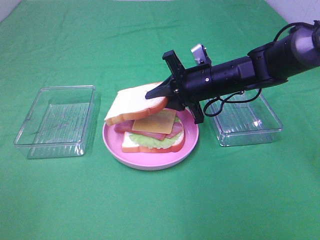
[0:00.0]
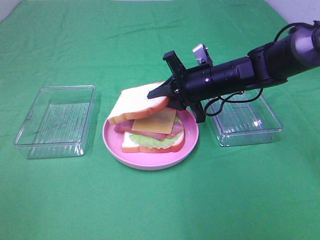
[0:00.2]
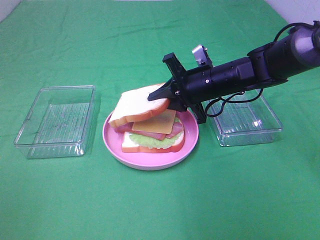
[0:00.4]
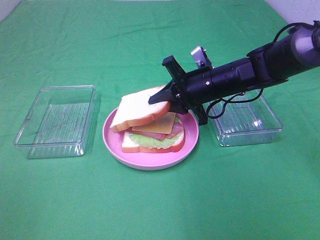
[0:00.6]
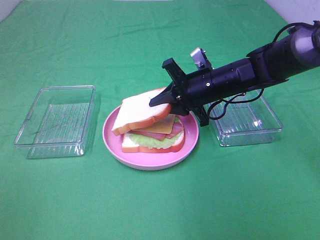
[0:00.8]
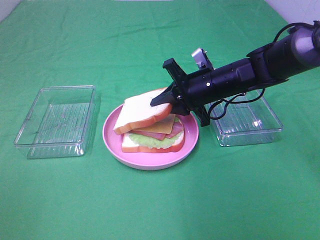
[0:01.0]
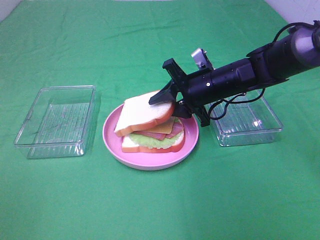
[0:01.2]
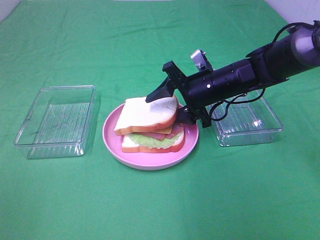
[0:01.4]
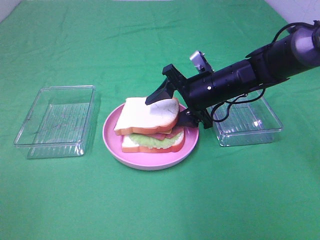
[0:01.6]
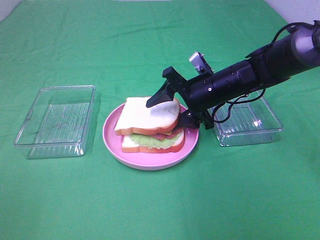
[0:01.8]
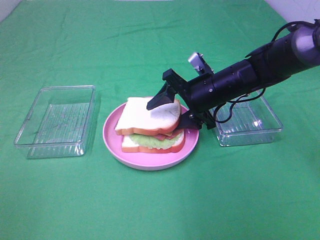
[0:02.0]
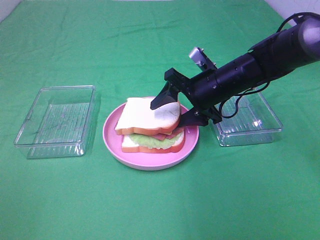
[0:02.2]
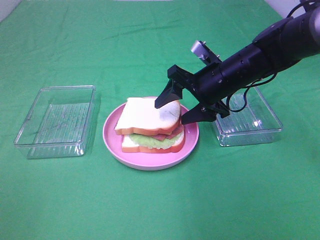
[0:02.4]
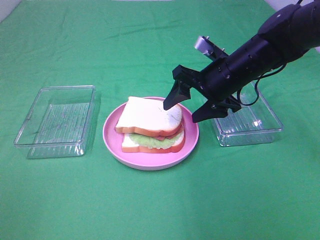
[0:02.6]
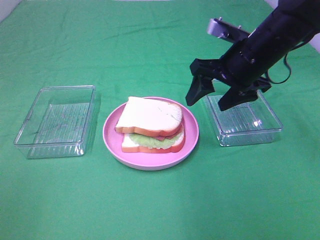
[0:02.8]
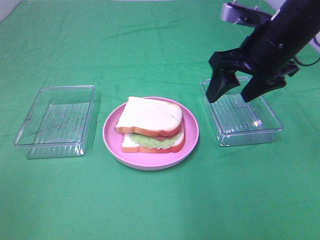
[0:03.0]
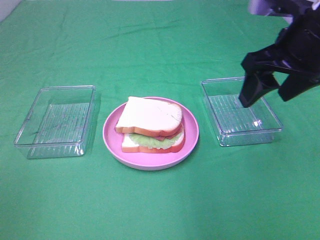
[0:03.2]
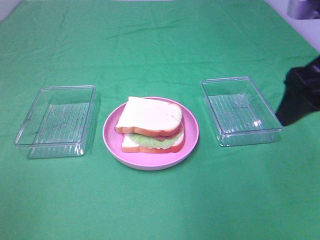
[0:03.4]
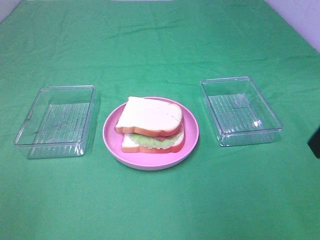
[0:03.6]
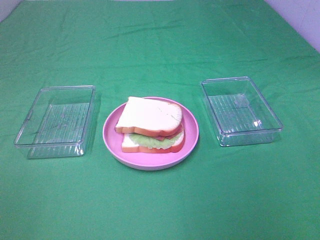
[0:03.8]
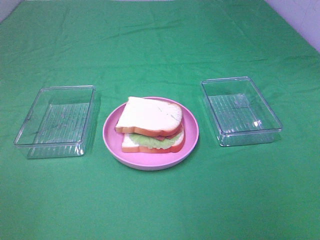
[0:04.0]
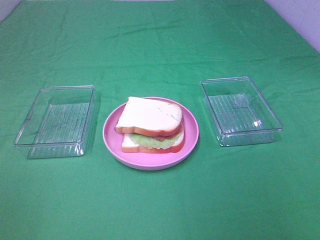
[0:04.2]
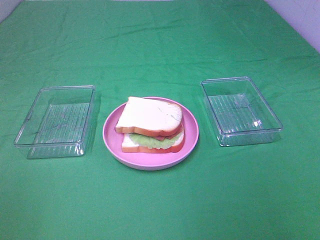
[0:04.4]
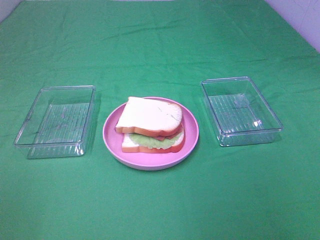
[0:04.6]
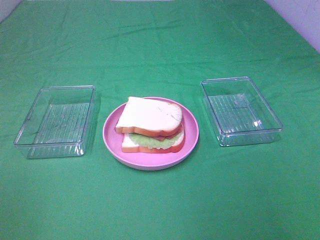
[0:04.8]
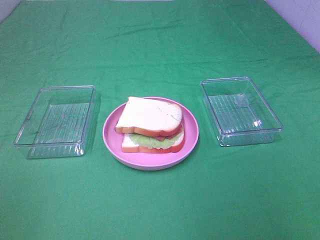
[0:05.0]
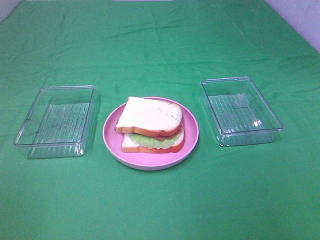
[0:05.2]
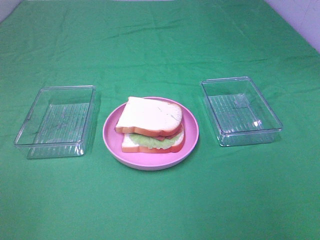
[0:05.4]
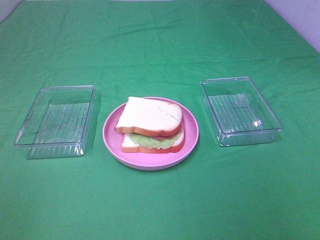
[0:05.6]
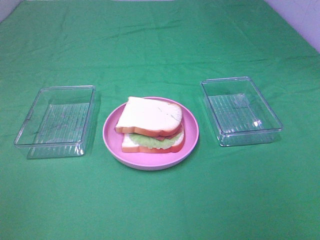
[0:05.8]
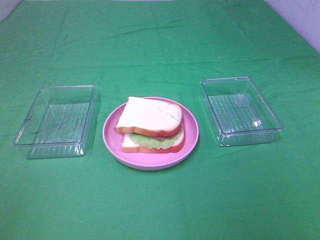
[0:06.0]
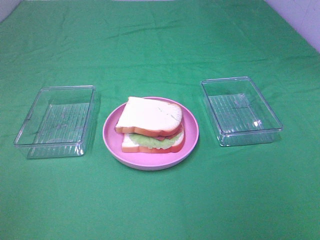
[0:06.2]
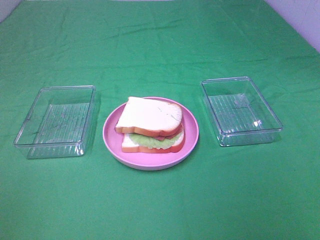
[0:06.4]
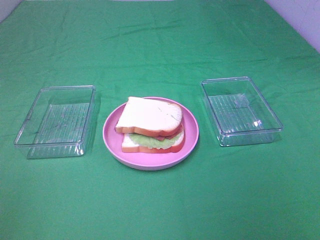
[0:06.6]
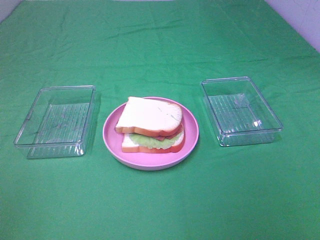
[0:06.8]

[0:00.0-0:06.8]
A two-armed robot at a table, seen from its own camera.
Task of the whole recording: Make sandwiches.
Step, 0:00.0 to 0:02.4: Right hand:place the bread slice on the cheese slice.
0:00.0 to 0:01.4: The right gripper opens.
0:01.4 to 0:02.8: The right gripper heads upward, covering approximately 10 cm.
0:02.8 to 0:04.0: The right gripper goes about 30 cm backward.

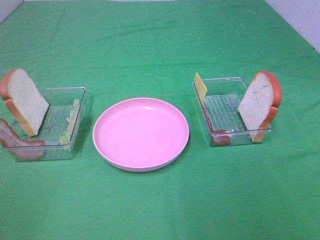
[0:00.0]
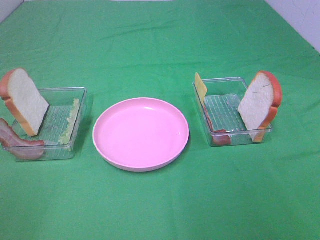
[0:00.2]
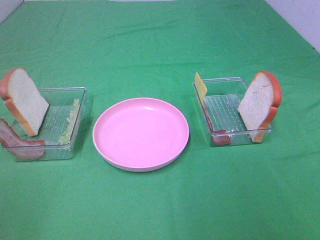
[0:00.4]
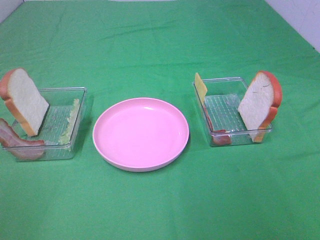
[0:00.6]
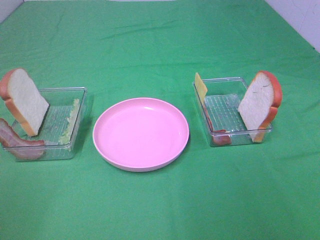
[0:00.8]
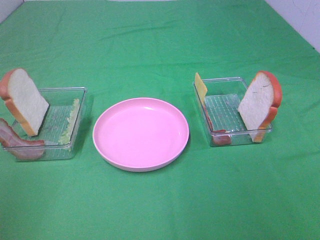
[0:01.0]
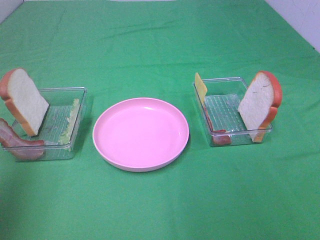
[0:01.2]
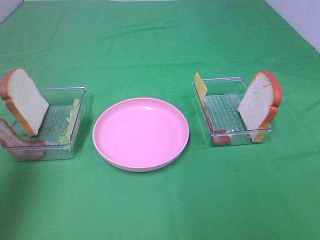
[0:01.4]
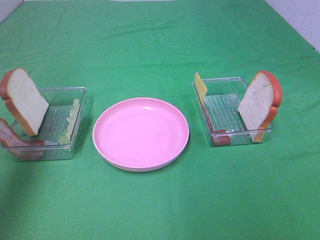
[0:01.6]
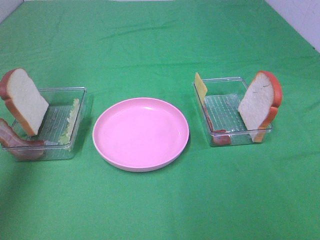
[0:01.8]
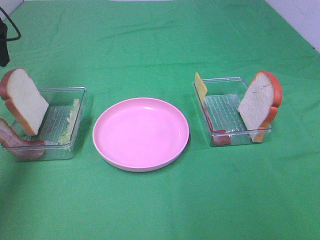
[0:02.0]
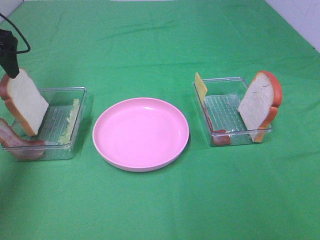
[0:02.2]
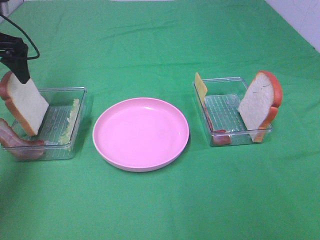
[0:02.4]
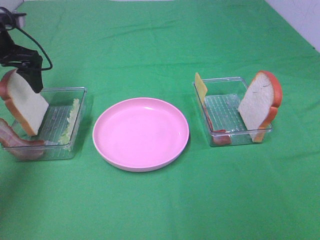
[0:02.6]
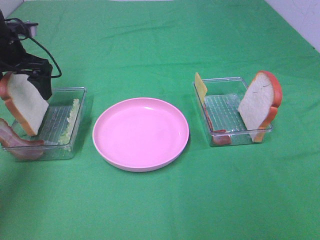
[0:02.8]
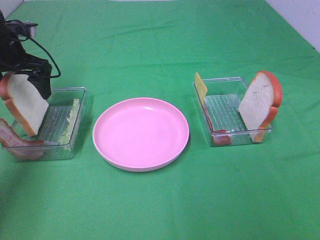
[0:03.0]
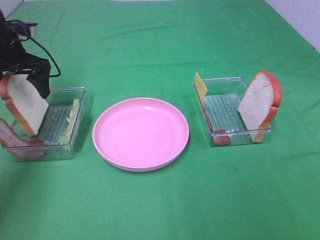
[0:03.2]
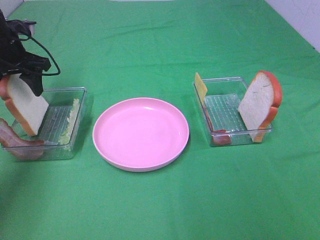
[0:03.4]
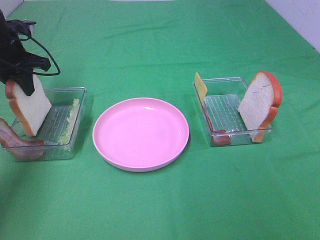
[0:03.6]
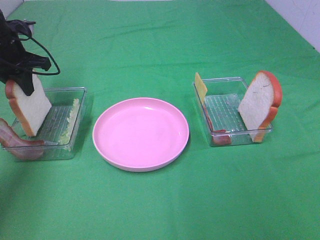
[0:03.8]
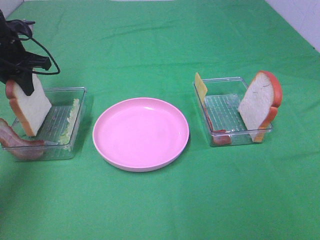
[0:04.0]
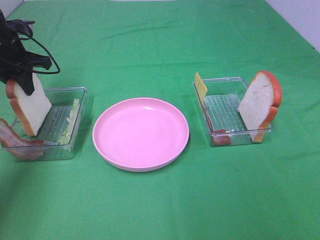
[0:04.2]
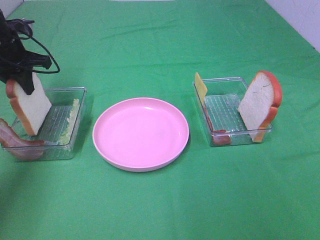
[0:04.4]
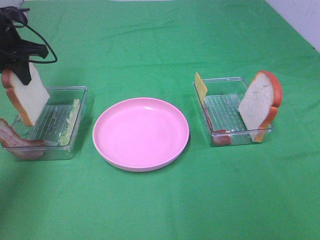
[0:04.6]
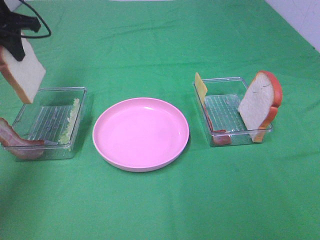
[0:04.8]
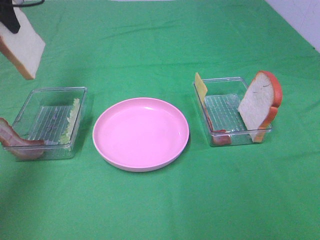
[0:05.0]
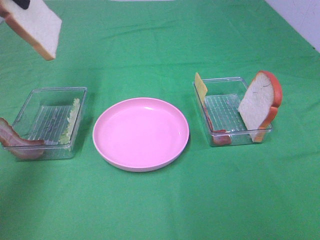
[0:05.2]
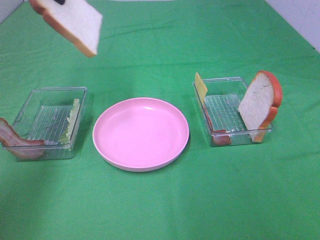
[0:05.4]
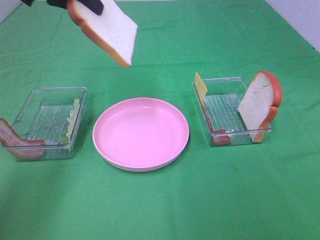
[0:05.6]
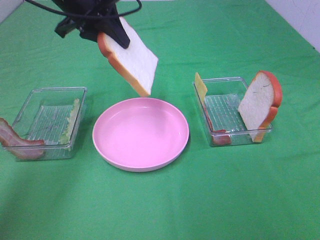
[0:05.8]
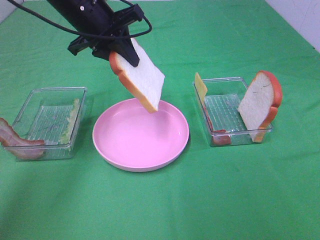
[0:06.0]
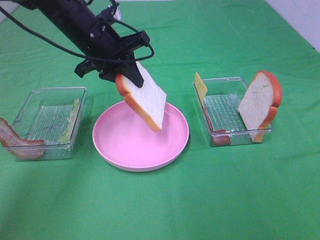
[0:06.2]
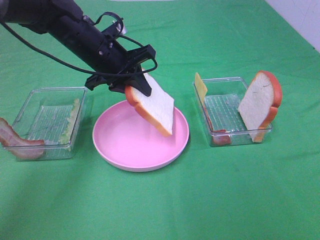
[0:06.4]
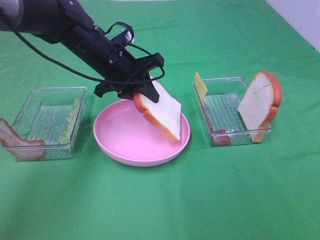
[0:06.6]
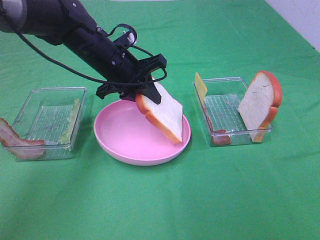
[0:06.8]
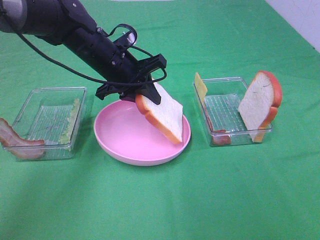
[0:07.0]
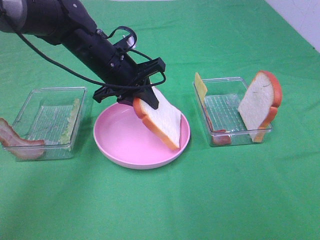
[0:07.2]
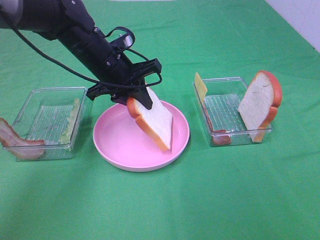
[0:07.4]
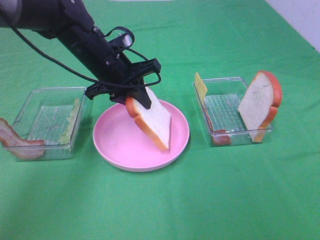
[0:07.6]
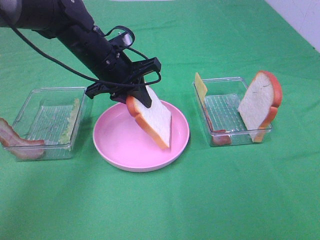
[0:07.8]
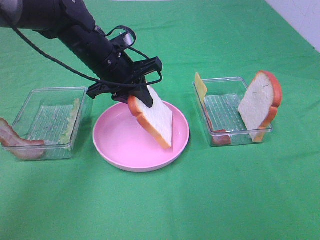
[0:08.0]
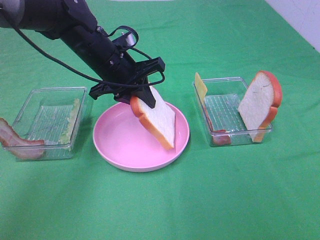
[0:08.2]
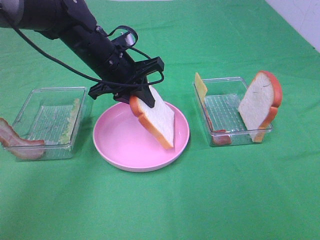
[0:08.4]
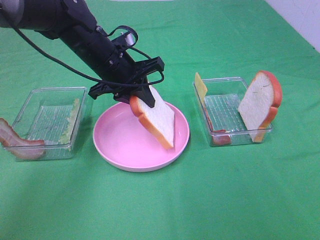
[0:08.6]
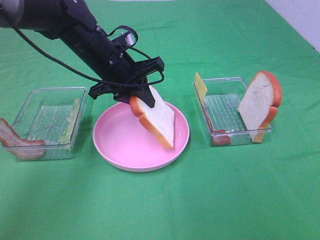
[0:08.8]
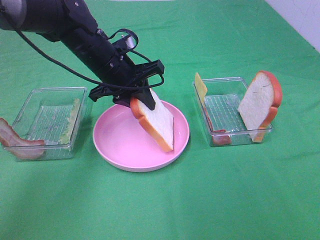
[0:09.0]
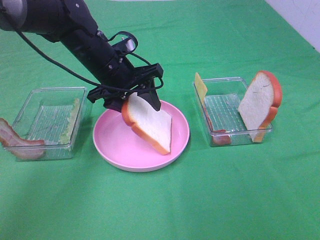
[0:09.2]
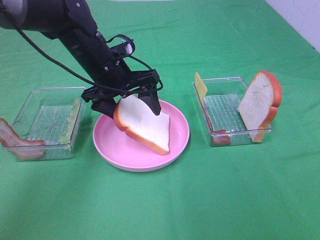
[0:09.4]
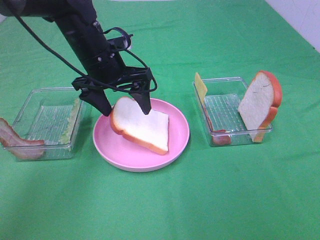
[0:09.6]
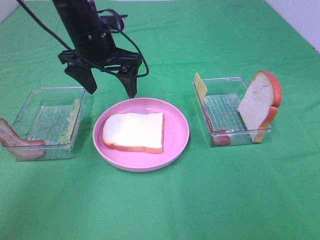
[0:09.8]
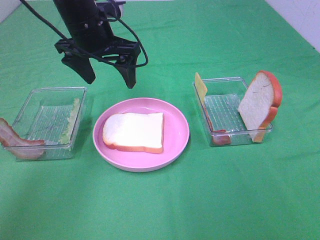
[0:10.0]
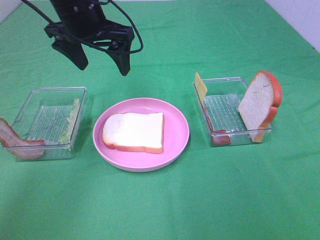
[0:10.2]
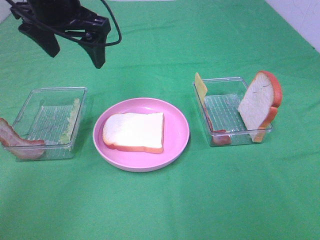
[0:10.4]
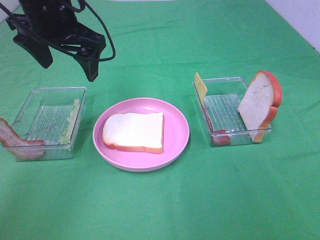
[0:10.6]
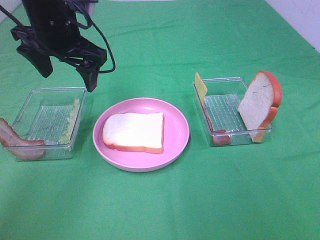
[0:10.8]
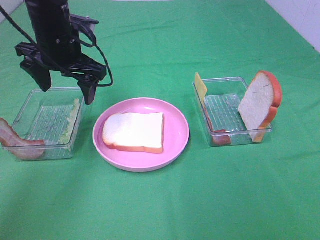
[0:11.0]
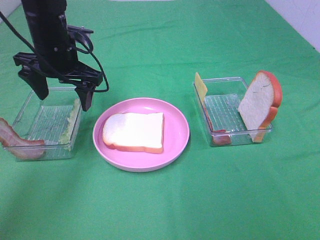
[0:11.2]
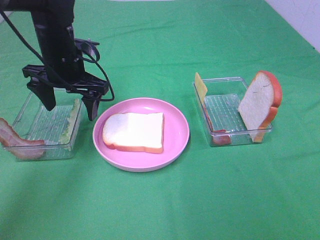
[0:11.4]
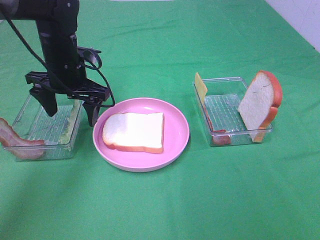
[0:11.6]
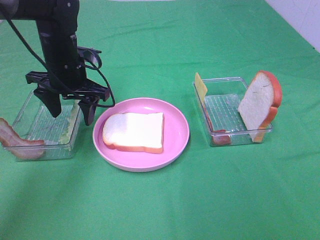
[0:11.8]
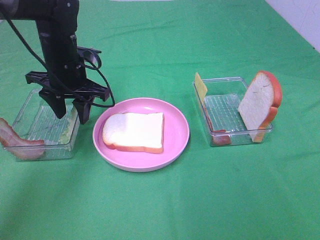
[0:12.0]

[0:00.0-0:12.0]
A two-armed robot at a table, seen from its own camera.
Task of the whole recording: Make sandwiches.
Step, 0:00.0 to 0:03.6: Left hand:grab the bread slice.
Step, 0:03.8 to 0:09.8: Left hand:place the bread slice on the plate.
0:00.0 to 0:01.6: The left gripper goes about 30 cm forward.
0:01.6 to 0:03.0: The left gripper heads downward and forward, covering some 25 cm.
0:03.0 to 0:04.4: The left gripper closes.
0:04.4 to 0:06.0: The left gripper is displaced to the right by roughly 15 cm.
0:06.0 to 0:07.6: The left gripper heads downward, covering about 10 cm.
0:07.6 to 0:09.0: Both grippers stay about where they are.
0:09.0 to 0:10.4: The left gripper travels upward and to the left by some 15 cm, and opens up.
0:10.4 to 0:12.0: The left gripper travels downward by about 15 cm, and closes up.

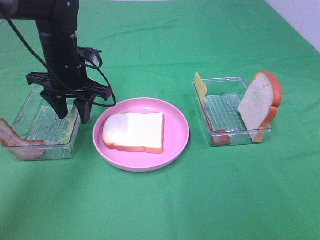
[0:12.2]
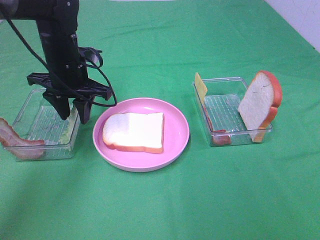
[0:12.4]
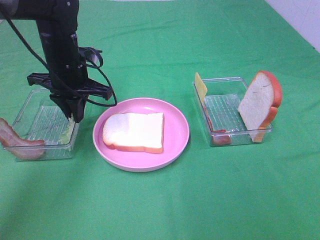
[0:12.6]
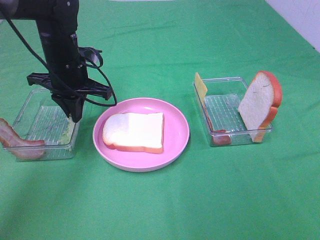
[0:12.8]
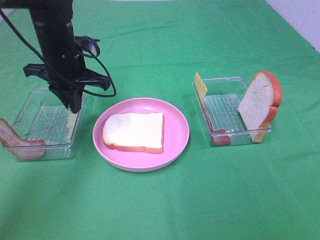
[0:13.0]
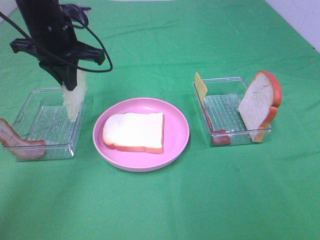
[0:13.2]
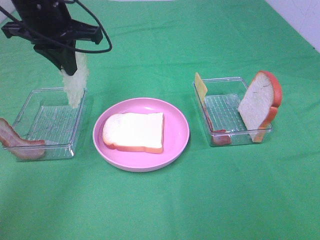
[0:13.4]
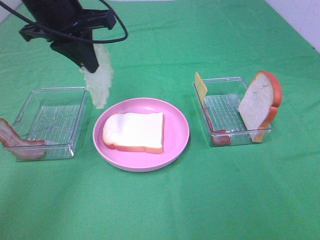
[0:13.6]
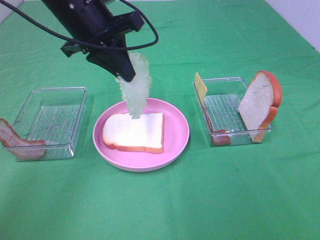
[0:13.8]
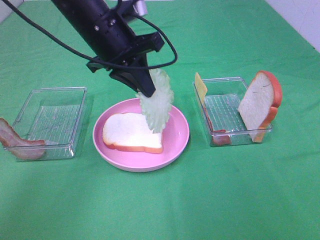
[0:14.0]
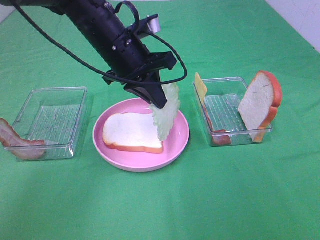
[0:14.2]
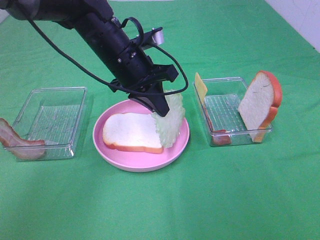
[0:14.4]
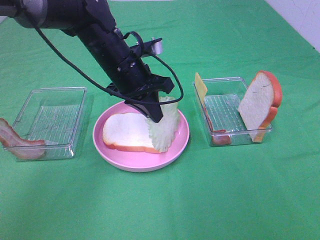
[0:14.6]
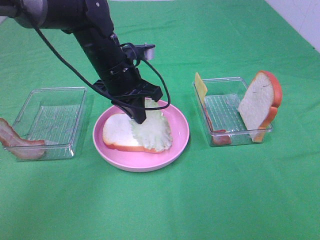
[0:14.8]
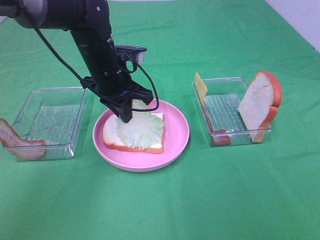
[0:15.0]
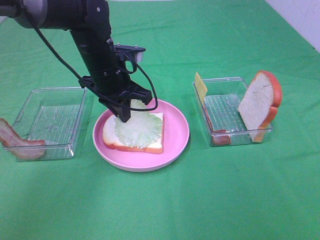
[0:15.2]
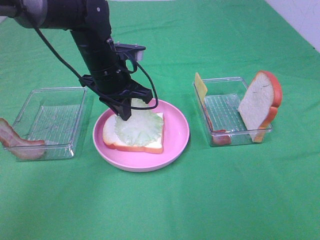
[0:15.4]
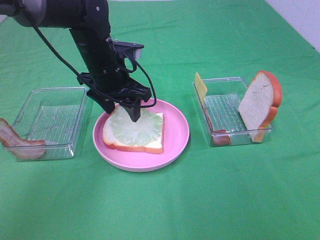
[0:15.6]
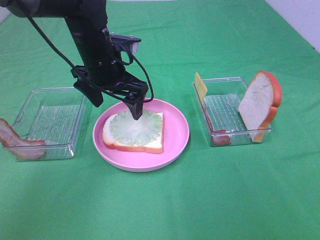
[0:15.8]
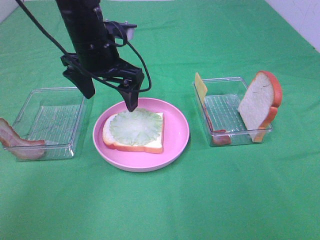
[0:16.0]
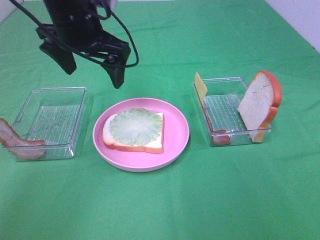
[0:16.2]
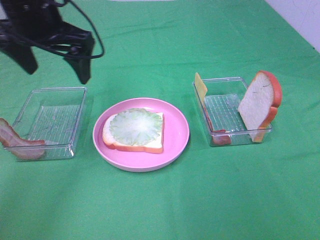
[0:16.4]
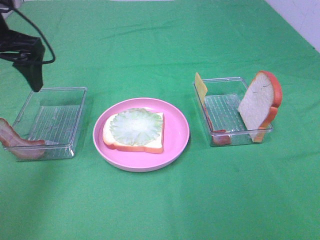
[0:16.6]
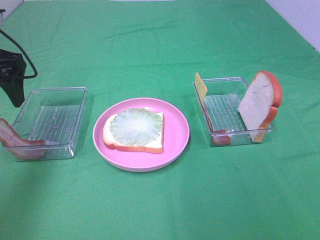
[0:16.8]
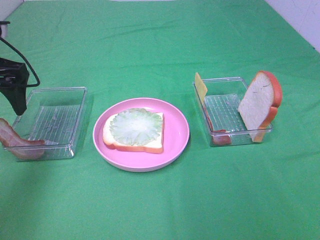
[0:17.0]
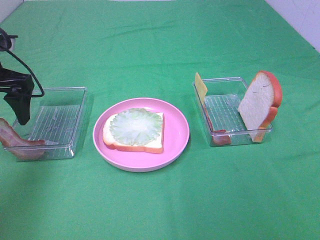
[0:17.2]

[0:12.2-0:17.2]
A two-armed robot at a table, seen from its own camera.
Task of the whole recording: Make sandwiches.
Step, 0:13.0 to 0:15.6: Left hand:place the lettuce slice on the bread slice.
0:12.2 to 0:13.8: The left gripper goes some 10 cm upward and to the right, and closes up.
0:13.8 to 0:15.6: The left gripper is displaced downward by roughly 10 cm, and opens up.
0:15.6 to 0:17.2: The left gripper goes approximately 20 cm to the left.
